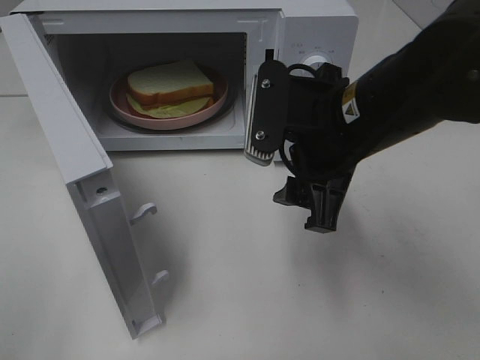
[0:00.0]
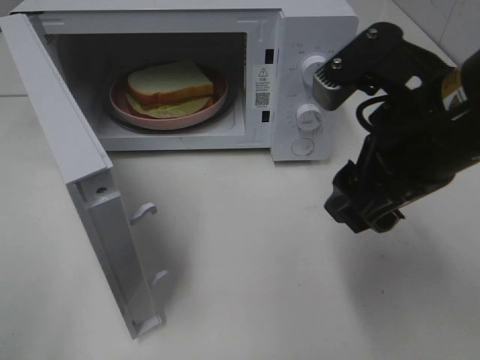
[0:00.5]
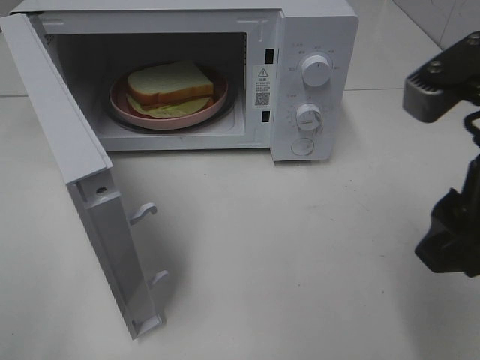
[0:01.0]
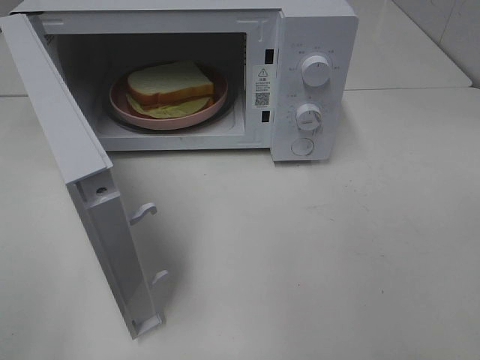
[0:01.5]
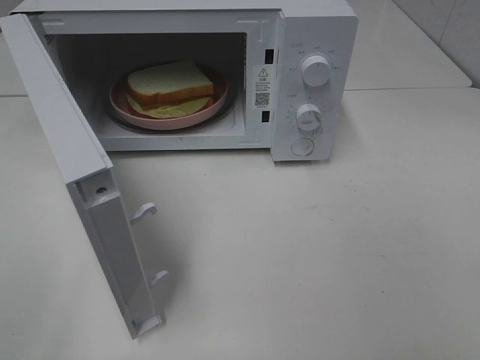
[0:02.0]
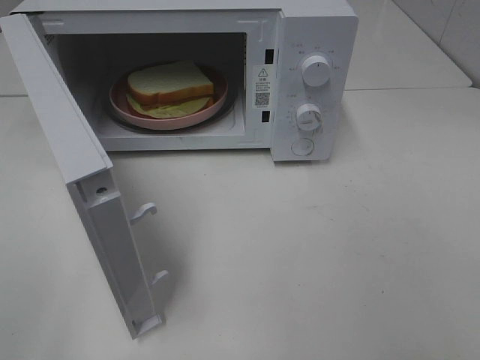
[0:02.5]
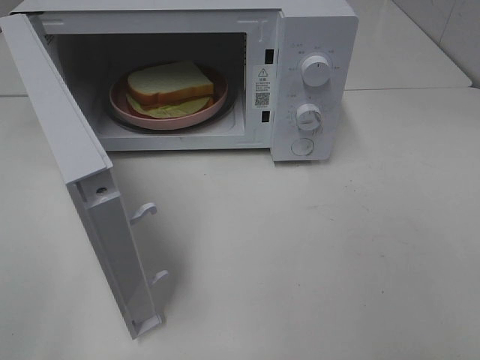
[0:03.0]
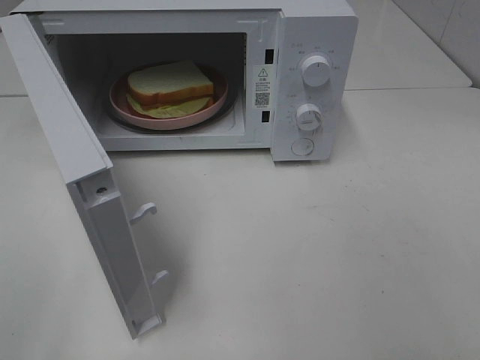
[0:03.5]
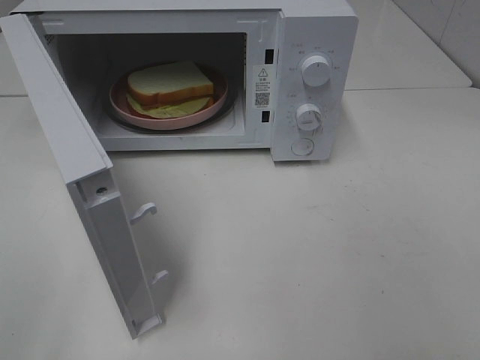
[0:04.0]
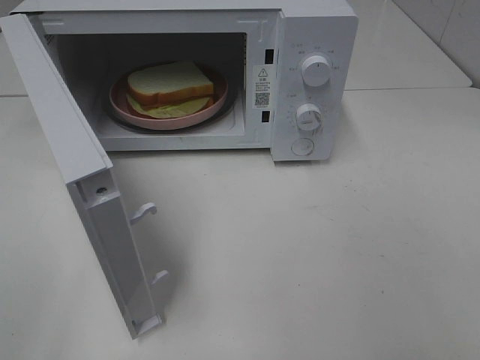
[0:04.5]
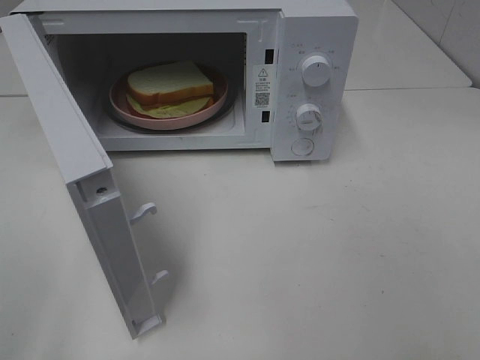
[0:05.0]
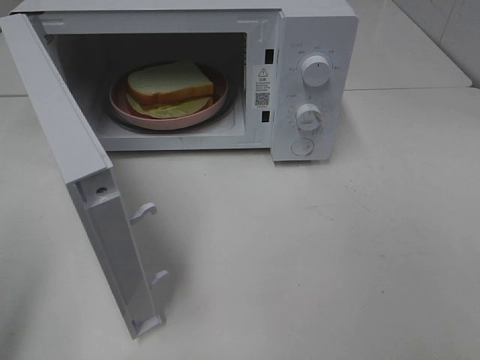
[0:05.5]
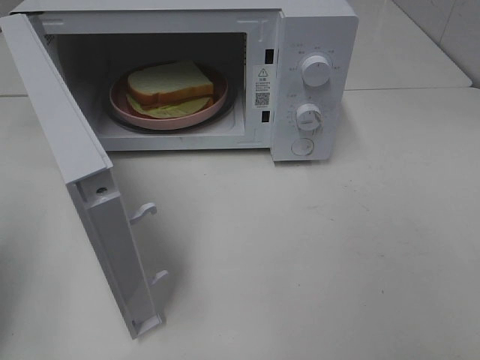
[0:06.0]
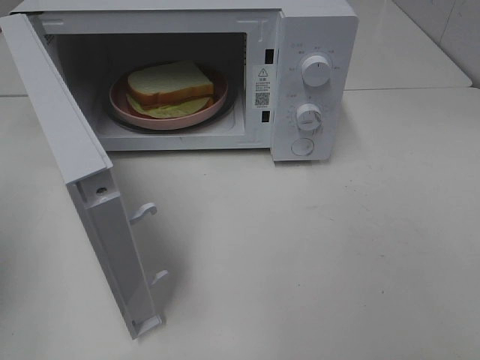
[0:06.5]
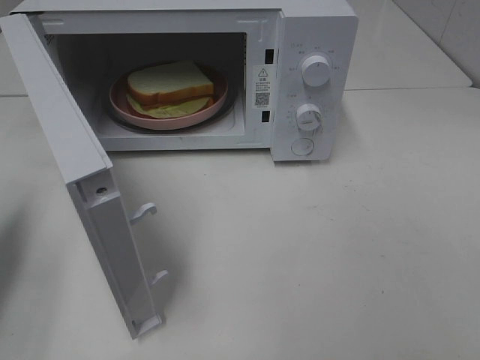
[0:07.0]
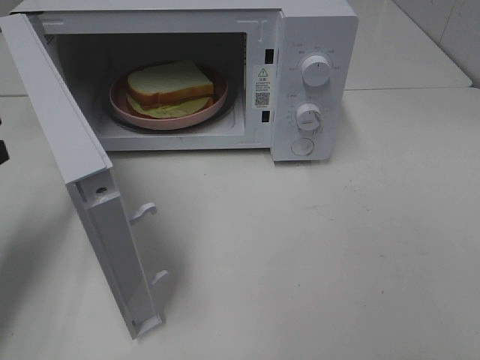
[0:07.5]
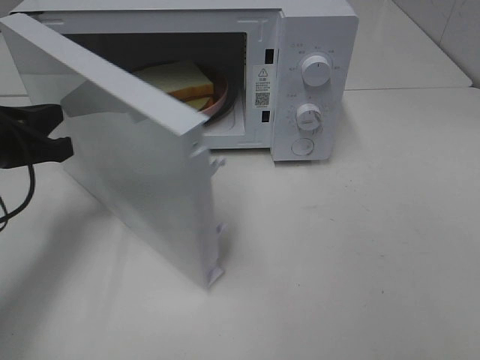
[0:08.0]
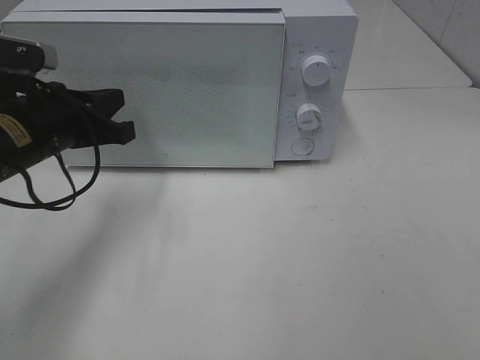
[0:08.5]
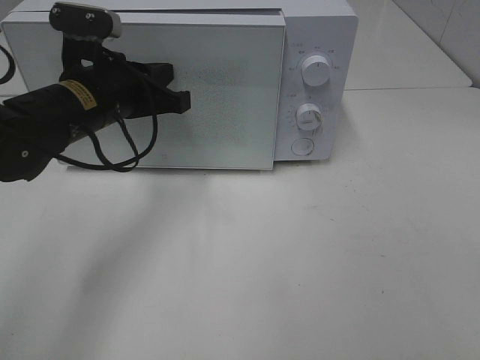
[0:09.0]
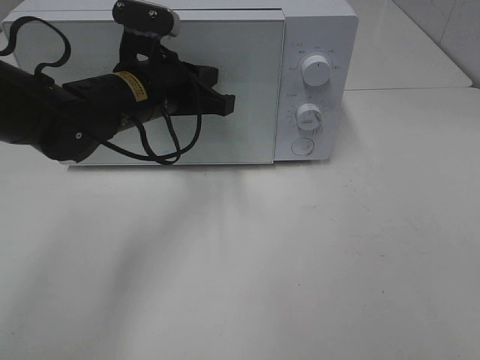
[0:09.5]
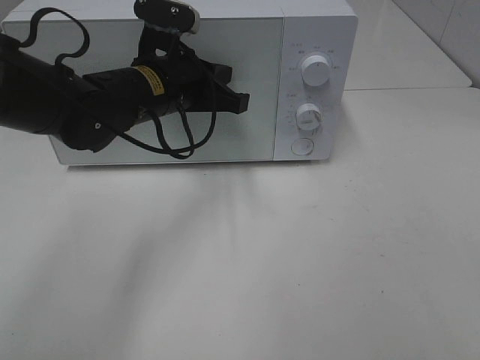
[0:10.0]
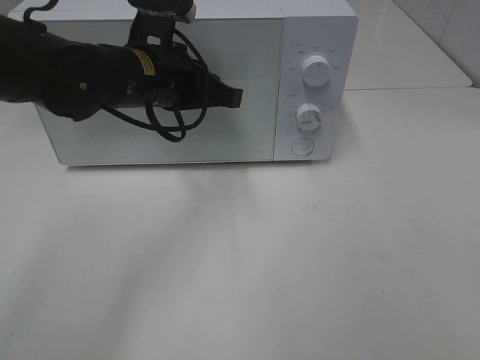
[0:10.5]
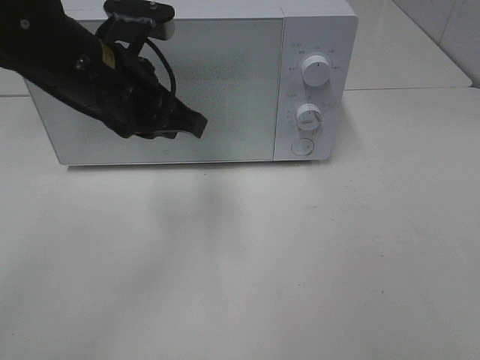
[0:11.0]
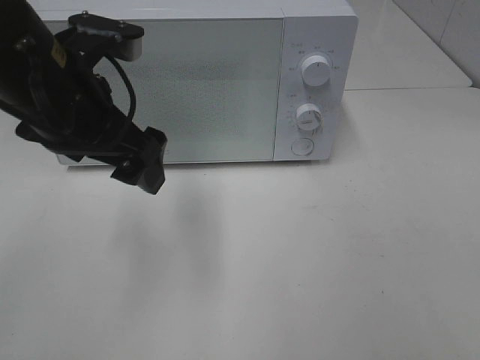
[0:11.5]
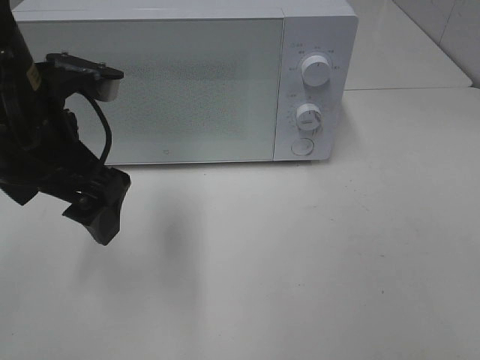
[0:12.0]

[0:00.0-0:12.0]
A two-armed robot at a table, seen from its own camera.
Task of the whole recording: Heat Sandwich.
Step, 0:00.0 to 0:10.5: Left hand: close the microwave door.
0:00.0 to 0:02.0: The right gripper goes some 30 cm backward and to the right.
0:04.0 to 0:06.0: The left gripper goes some 15 cm forward, and closes up.
0:06.0 to 0:08.0: The left gripper travels forward, downward and to the right by approximately 20 cm.
0:08.0 to 0:10.0: The left gripper goes approximately 20 cm to the right and forward.
0:10.0 to 0:12.0: The left gripper goes some 15 cm backward, to the left and upward, and opens up.

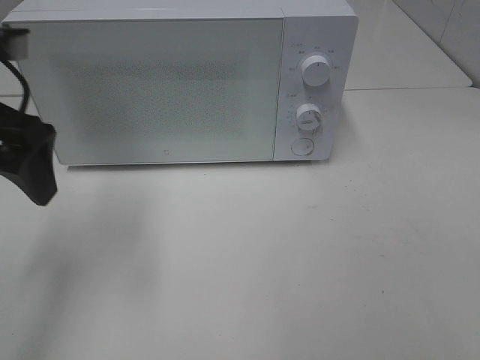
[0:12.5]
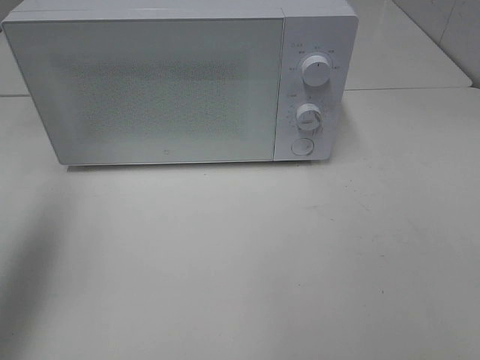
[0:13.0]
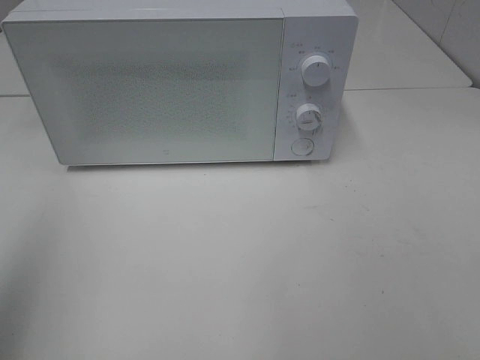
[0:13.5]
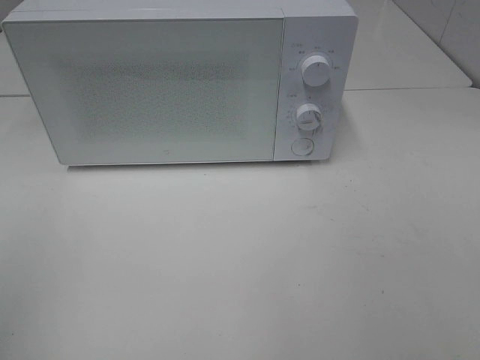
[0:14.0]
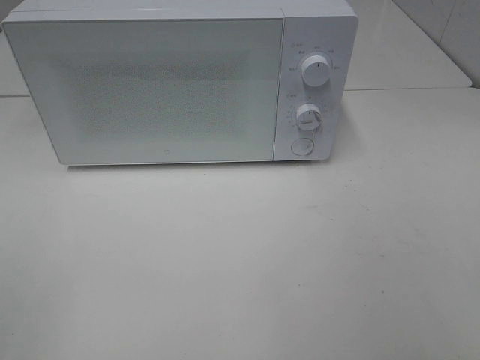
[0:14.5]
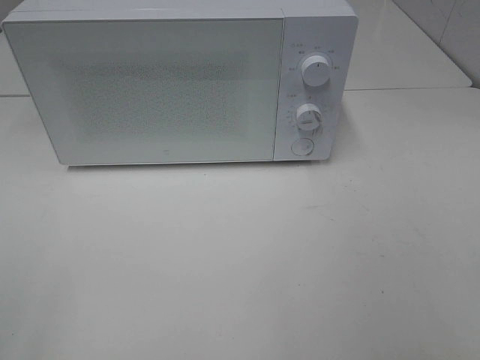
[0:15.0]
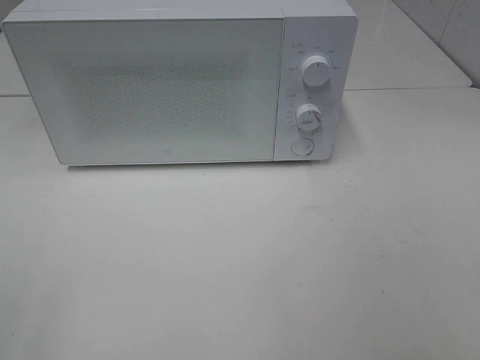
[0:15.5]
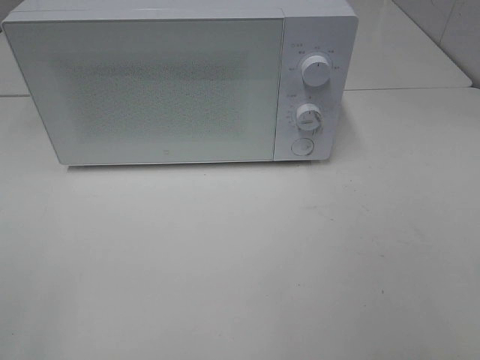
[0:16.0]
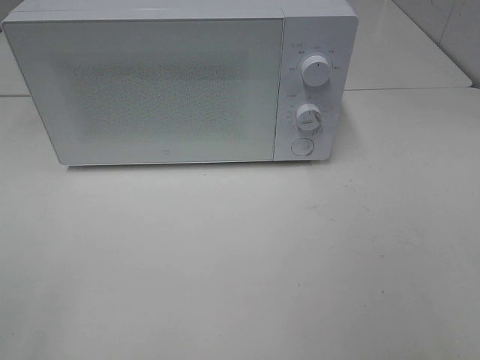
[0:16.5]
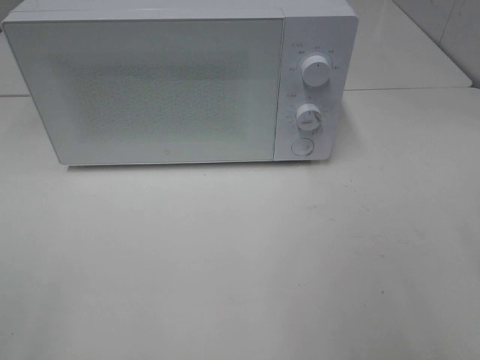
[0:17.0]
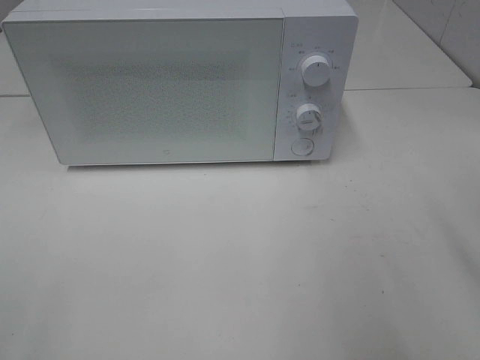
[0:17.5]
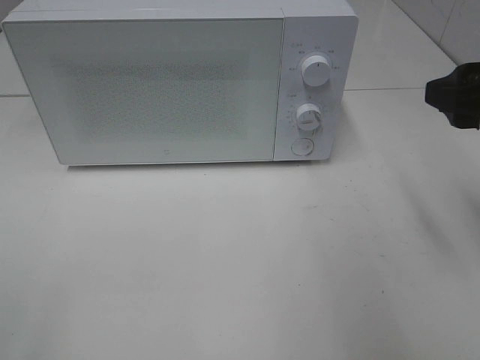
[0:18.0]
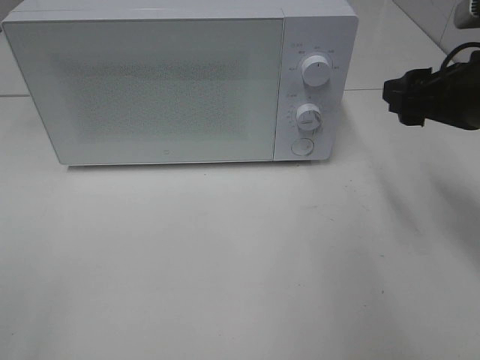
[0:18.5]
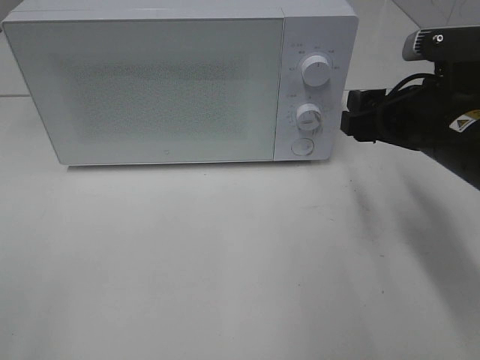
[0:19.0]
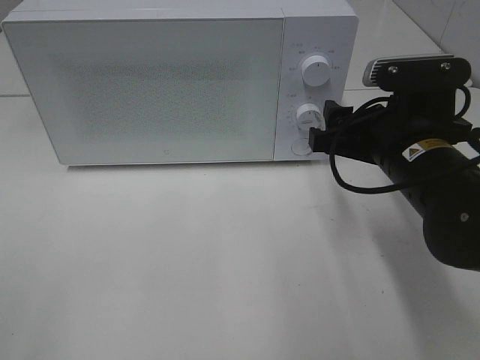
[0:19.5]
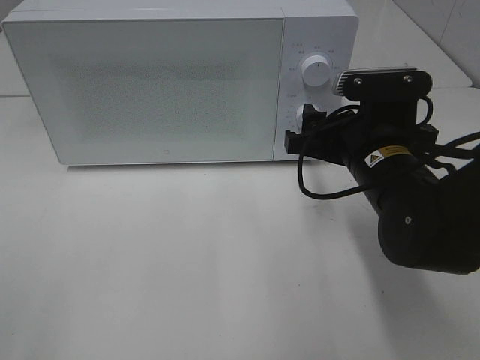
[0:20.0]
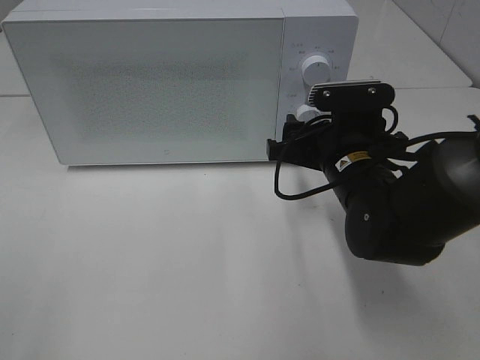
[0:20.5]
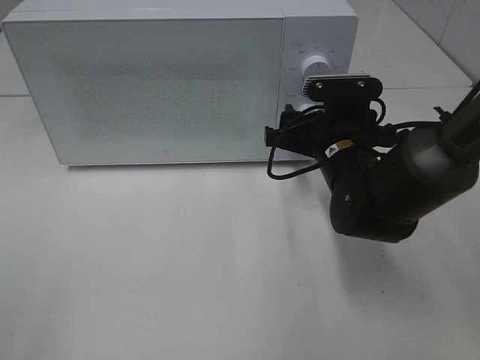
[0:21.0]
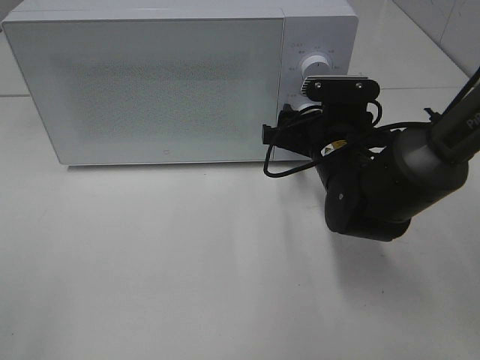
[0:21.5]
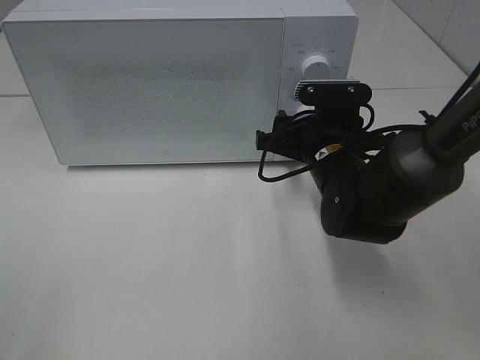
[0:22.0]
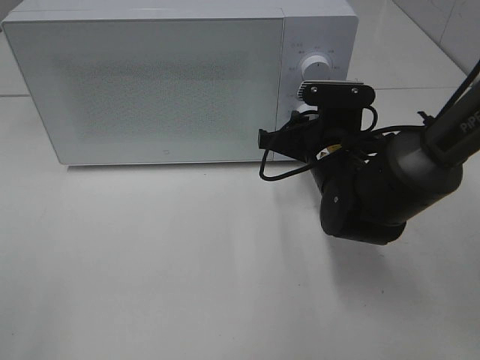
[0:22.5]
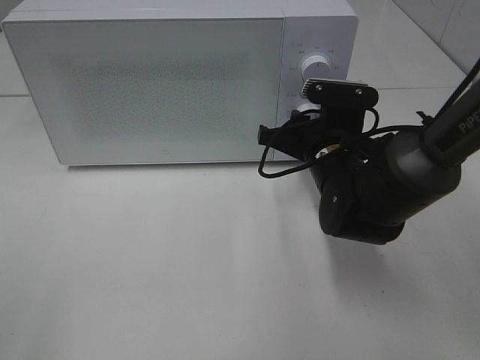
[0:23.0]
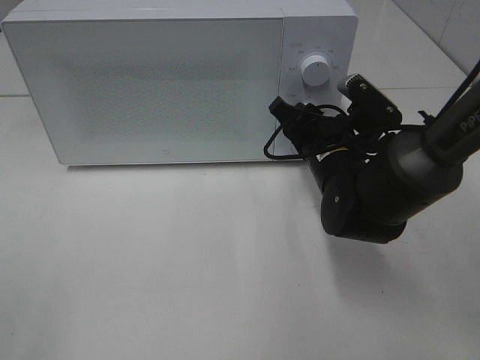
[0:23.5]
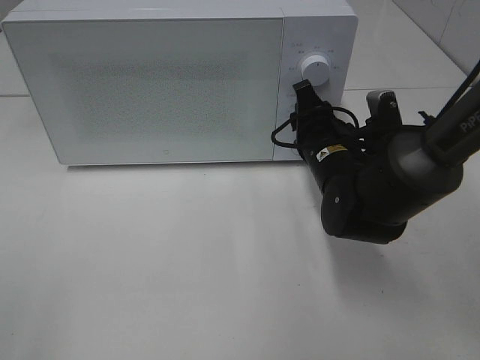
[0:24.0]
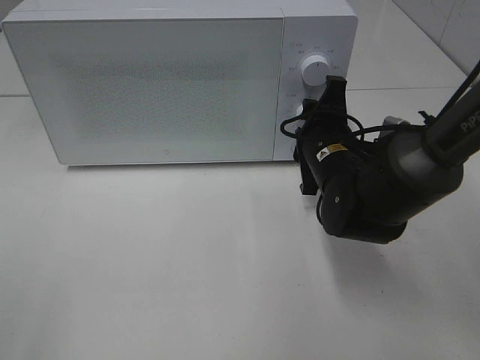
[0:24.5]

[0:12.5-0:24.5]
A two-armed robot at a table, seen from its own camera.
Task of the whole recording: Heat Sandwich.
0:12.5 to 0:14.5: The left gripper is displaced backward by approximately 25 cm.
0:16.5 to 0:18.5: The right gripper is displaced forward by some 25 cm.
0:18.5 to 0:20.5: The right gripper is displaced to the left and downward by approximately 15 cm.
0:20.5 to 0:22.5: The right gripper closes.

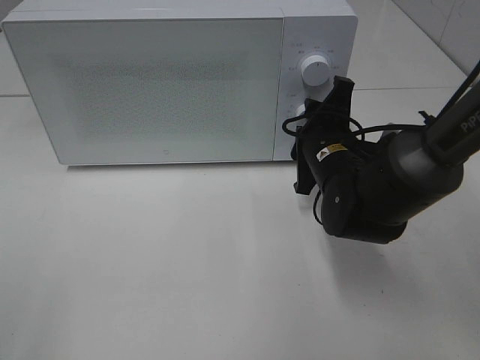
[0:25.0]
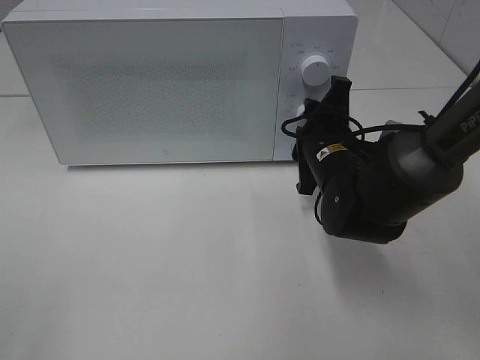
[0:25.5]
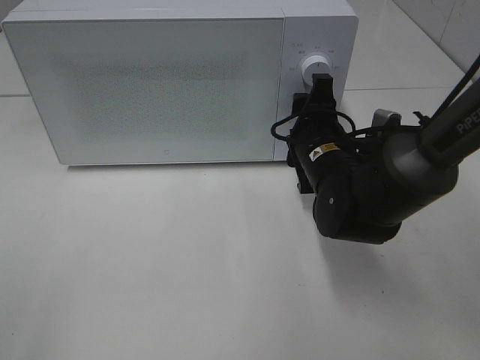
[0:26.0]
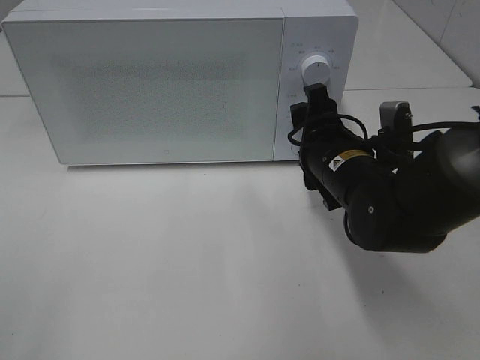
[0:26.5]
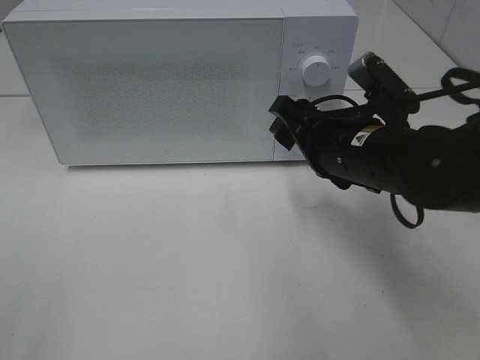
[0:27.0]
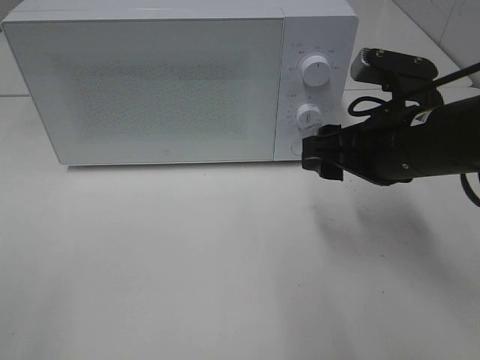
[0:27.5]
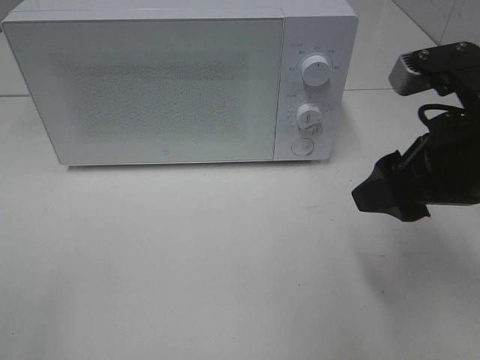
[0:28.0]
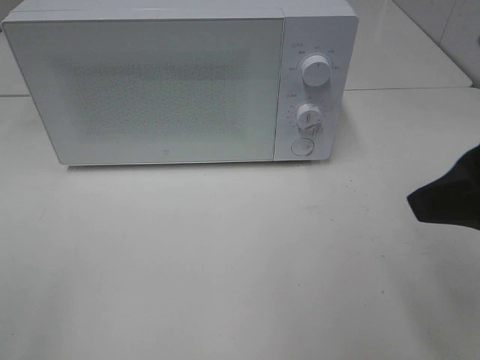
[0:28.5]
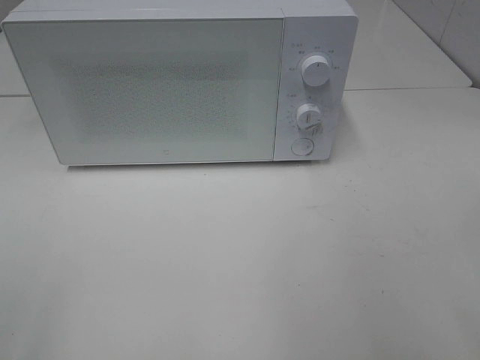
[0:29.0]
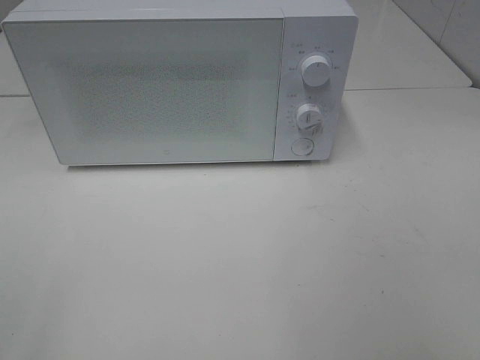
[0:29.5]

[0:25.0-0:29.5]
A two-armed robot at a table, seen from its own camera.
Task of the whole recording: Heat Sandwich.
0:25.0 to 0:27.0: The right gripper shifts roughly 10 cm upward and backward.
0:27.0 to 0:29.5: The right gripper moves backward, to the right and upward, some 35 cm.
